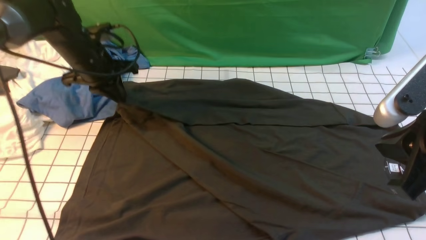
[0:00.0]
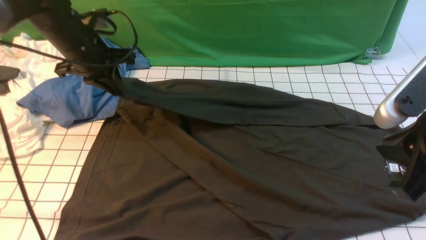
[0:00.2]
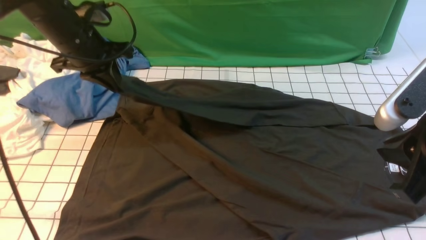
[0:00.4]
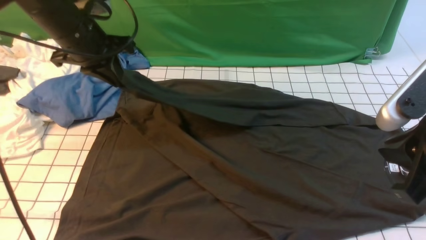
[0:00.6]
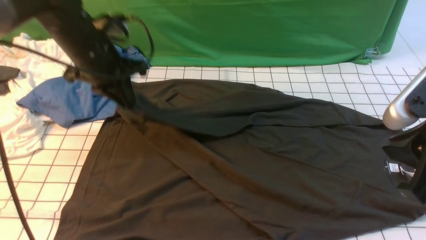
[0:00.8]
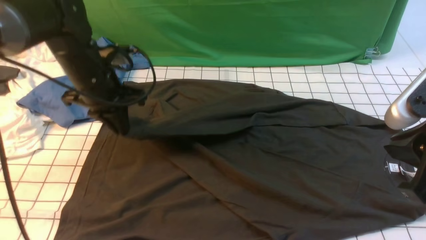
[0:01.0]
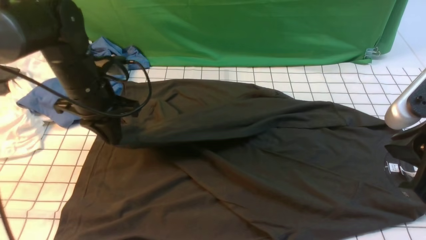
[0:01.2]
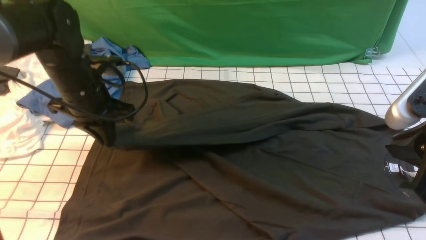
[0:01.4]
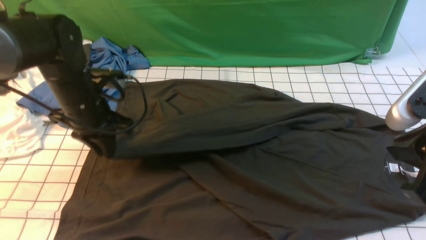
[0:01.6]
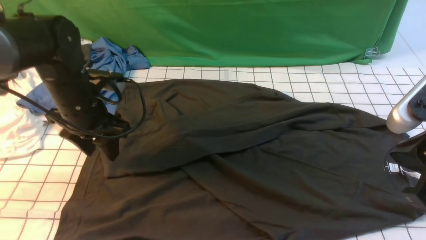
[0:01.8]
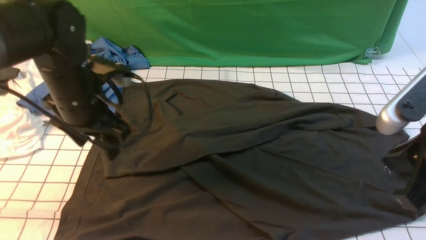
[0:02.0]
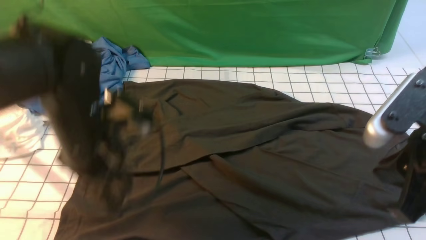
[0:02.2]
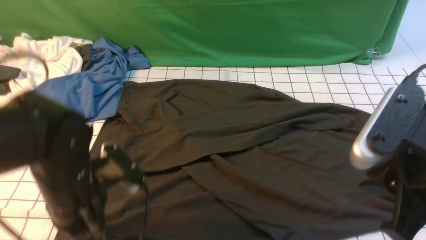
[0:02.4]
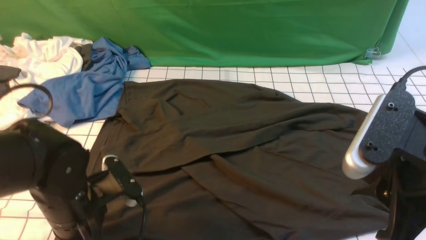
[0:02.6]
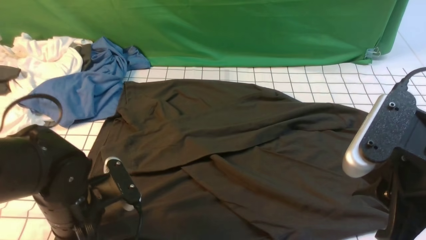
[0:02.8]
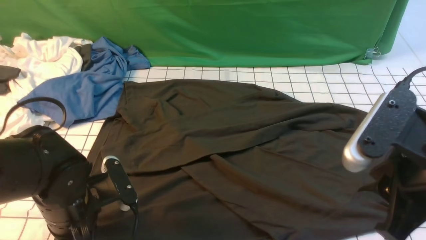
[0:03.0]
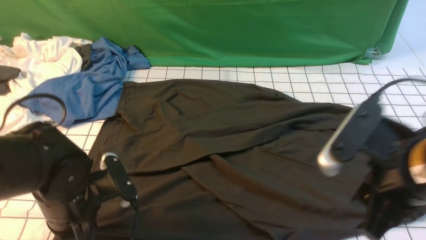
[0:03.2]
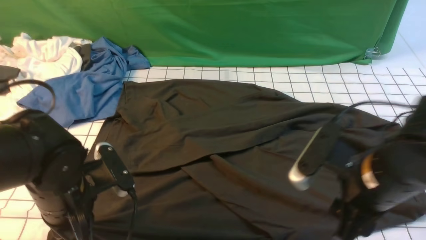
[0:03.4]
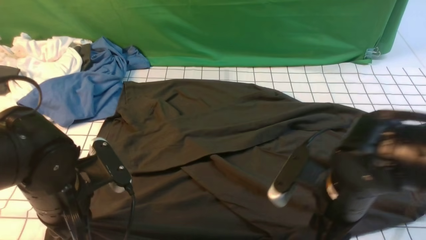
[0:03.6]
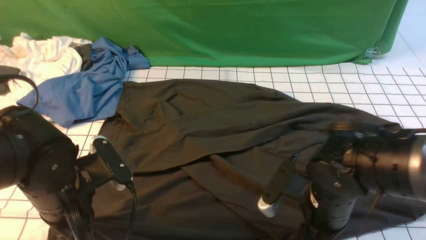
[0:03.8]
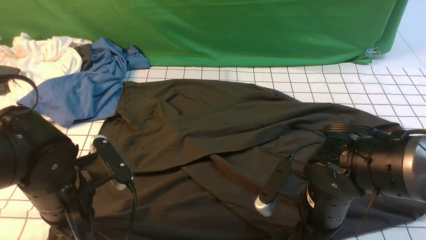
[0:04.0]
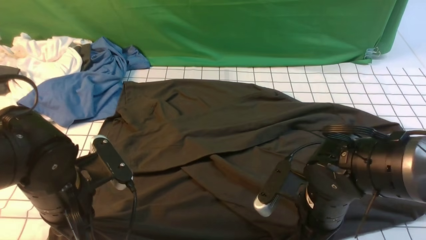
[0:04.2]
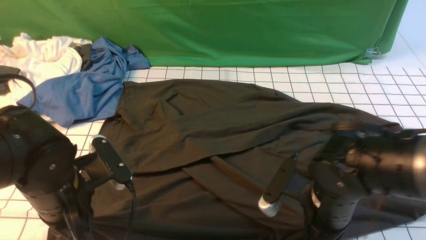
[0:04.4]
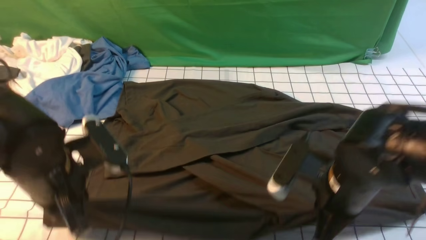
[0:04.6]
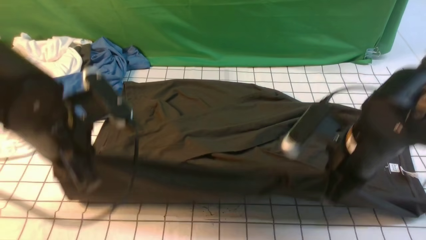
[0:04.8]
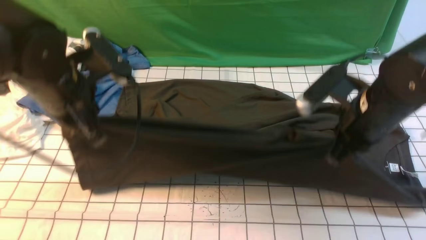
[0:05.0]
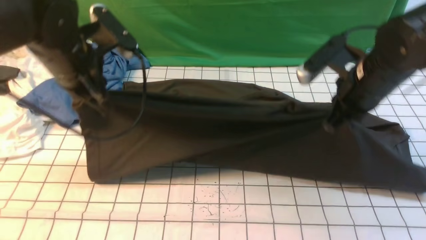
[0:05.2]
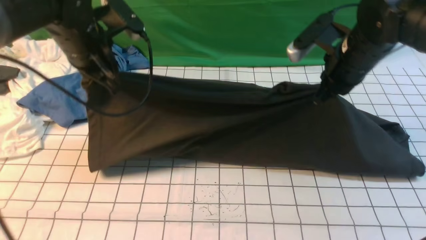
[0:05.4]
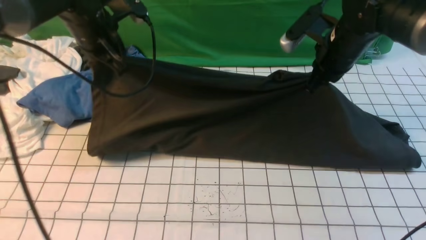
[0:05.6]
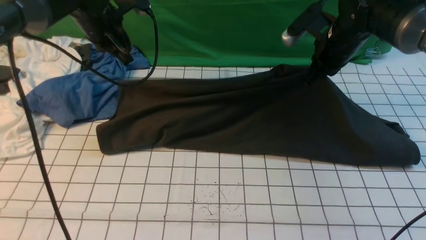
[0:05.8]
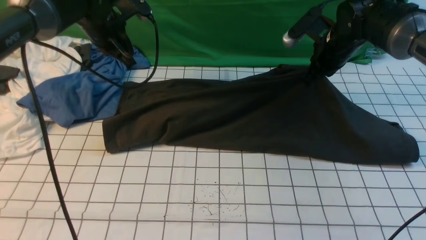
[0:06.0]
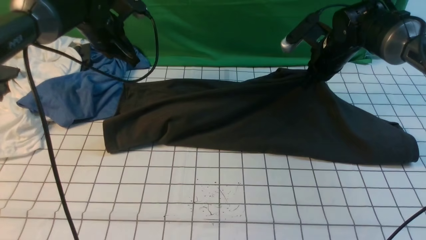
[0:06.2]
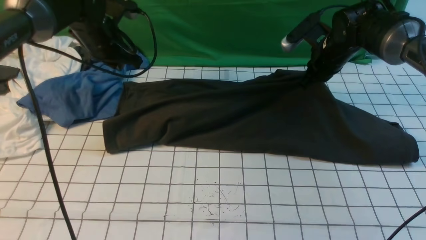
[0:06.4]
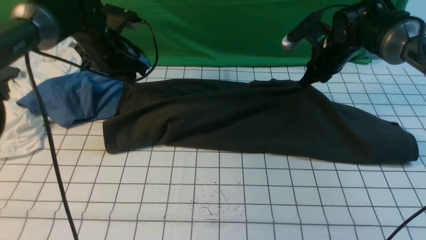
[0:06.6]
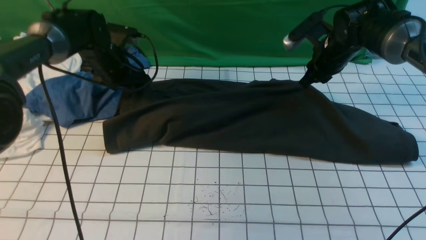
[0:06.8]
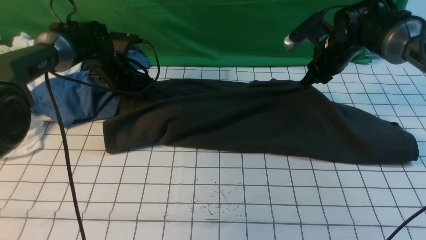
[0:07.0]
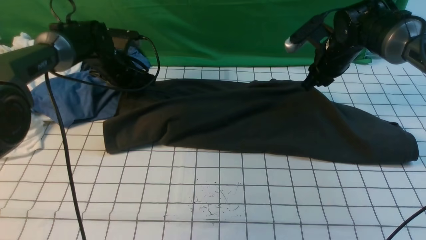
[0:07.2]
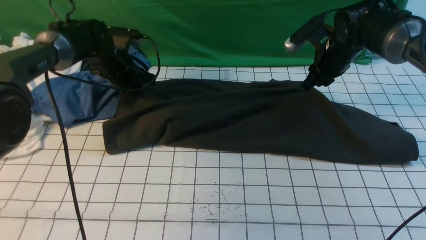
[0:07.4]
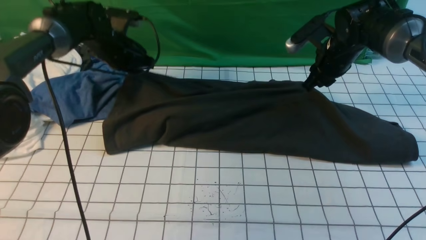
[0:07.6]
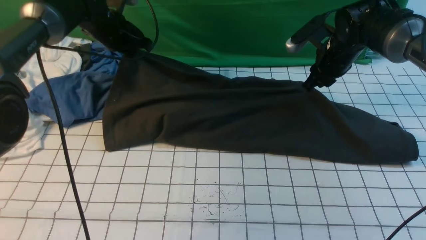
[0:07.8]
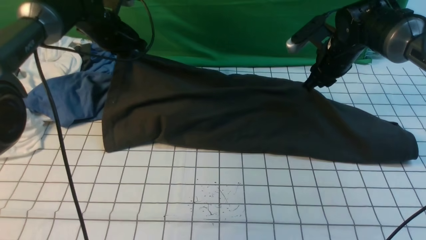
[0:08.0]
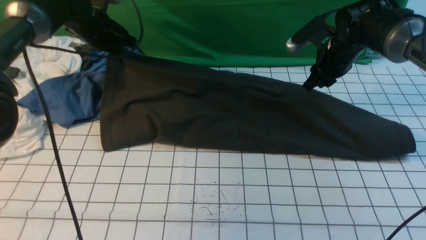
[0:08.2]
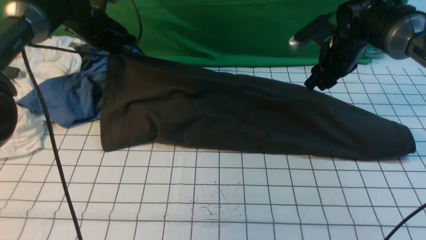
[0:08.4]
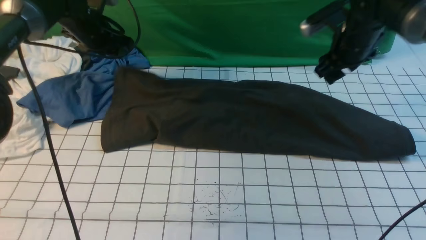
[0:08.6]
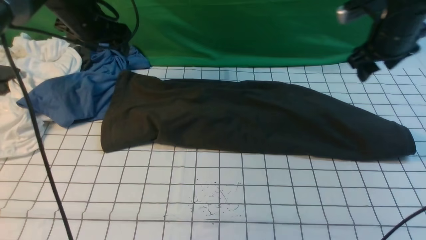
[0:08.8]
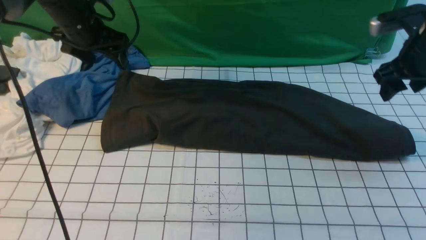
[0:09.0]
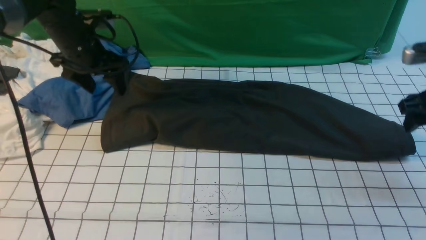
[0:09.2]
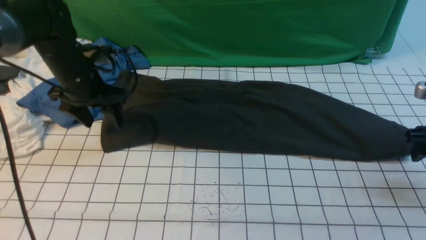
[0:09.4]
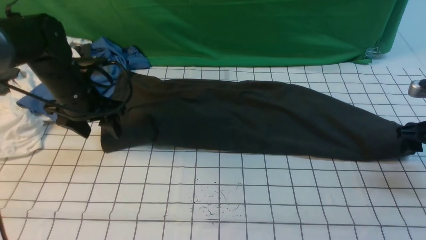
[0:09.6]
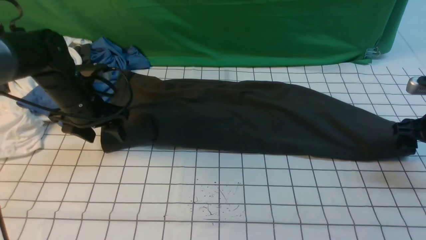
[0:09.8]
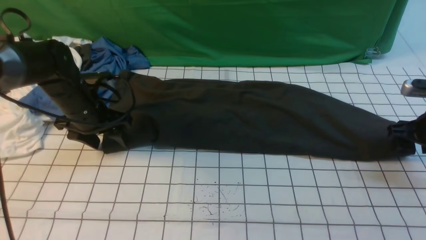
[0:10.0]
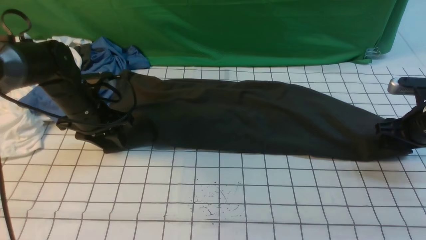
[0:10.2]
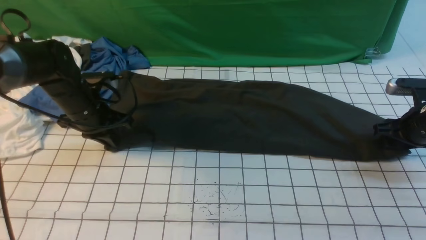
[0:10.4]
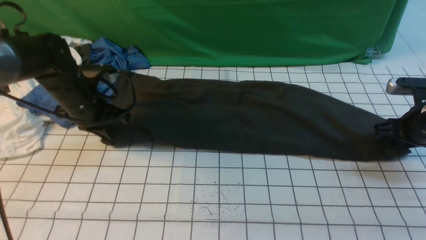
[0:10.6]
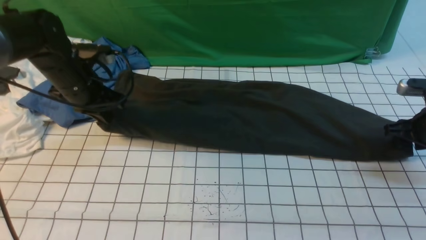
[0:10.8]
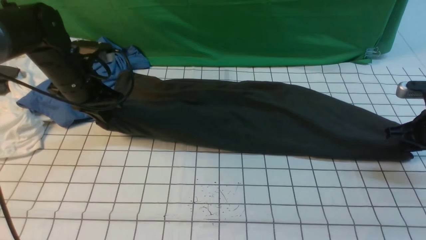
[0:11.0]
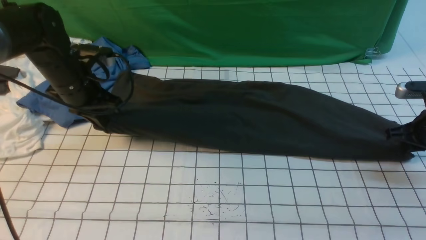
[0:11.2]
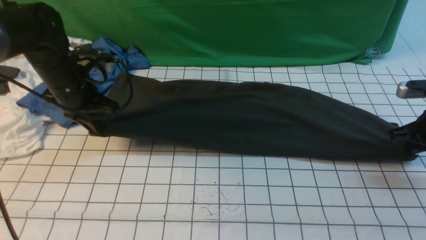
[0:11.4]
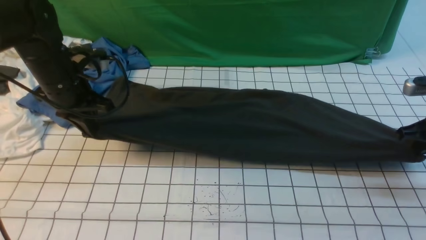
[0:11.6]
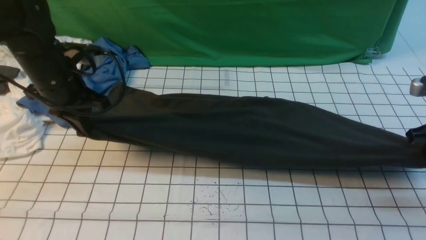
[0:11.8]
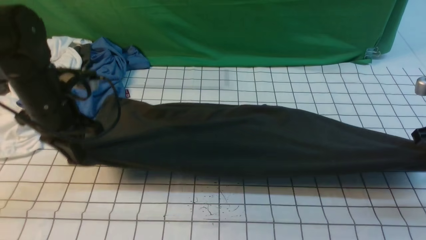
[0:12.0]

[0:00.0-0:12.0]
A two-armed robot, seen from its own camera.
Step, 0:00.0 to 0:02.0: use the left arm to drag and drop the cuff onto the cuff closest to the left arm.
Step, 0:02.2 to 0:04.4: use both arms simultaneously to clamp the lower edge of the clothing fabric.
Step, 0:04.6 to 0:08.6: use both arms to drag the lower edge of the fabric forward and fold it over the upper edge.
0:00.0 to 0:01.6: The left gripper heads backward, covering some 10 cm.
0:01.6 to 0:03.0: The right gripper ends up about 5 cm from where it was; the left gripper heads backward, covering about 15 cm, and opens, then closes once more.
0:03.0 to 0:04.4: The right gripper goes roughly 15 cm downward, forward and to the left, and closes, while the left gripper closes its fingers.
0:04.4 to 0:06.0: Both grippers move forward, about 25 cm.
0:06.0 to 0:07.6: The left gripper shifts some 5 cm downward, and opens and closes again. The right gripper opens.
0:07.6 to 0:09.0: The left gripper shifts approximately 5 cm upward, and opens its fingers; the right gripper heads to the right, backward and upward, covering about 15 cm, and opens up.
0:09.0 to 0:10.4: The left gripper goes some 10 cm downward and backward, and closes its fingers. The right gripper heads downward, covering some 10 cm.
0:10.4 to 0:12.0: The left gripper heads backward and upward, covering some 10 cm. Meanwhile the right gripper is displaced upward by approximately 5 cm, and closes up.

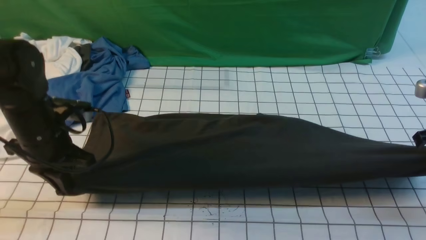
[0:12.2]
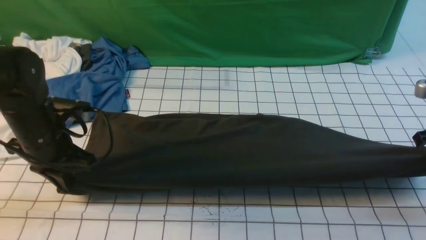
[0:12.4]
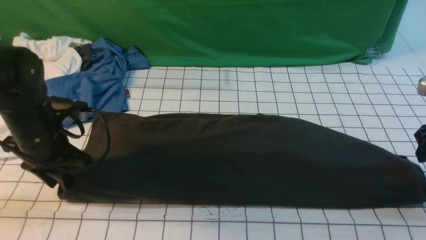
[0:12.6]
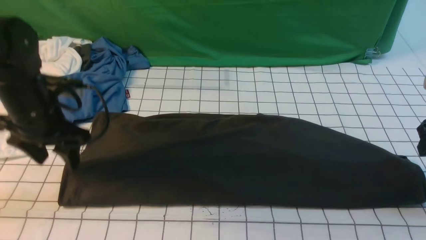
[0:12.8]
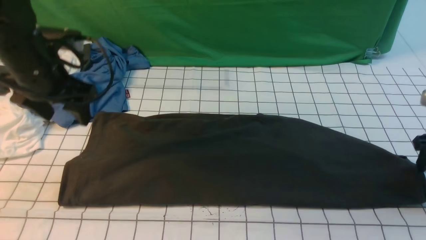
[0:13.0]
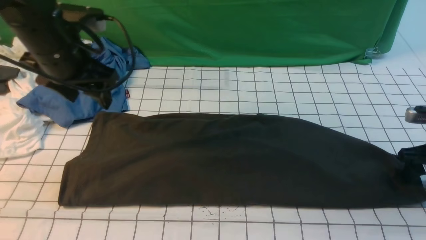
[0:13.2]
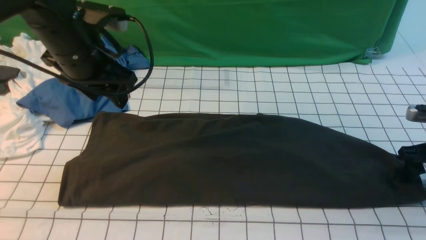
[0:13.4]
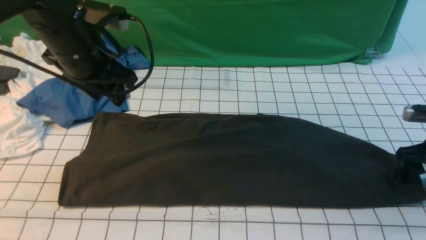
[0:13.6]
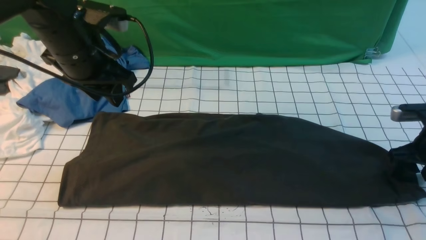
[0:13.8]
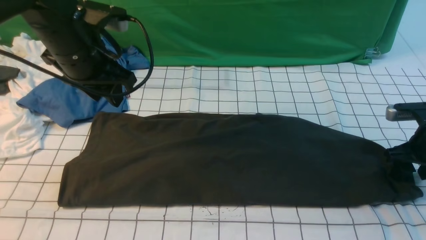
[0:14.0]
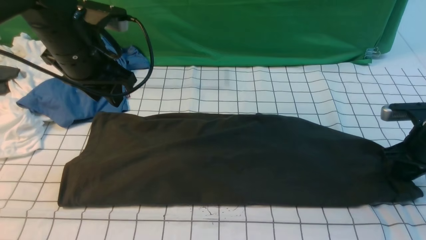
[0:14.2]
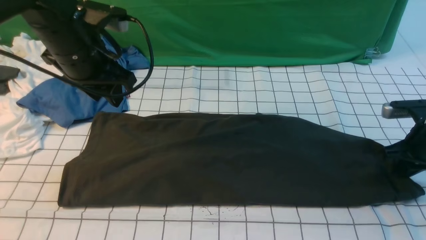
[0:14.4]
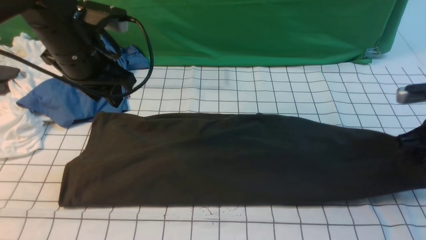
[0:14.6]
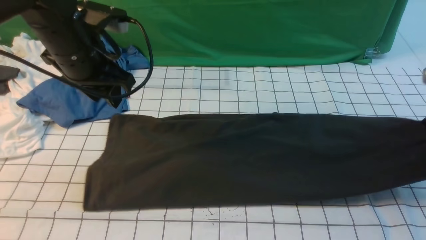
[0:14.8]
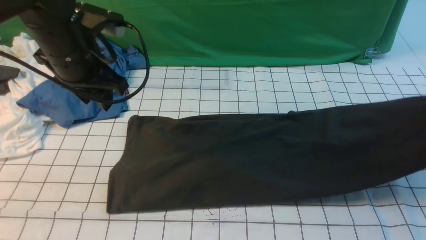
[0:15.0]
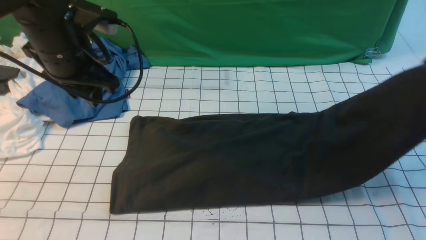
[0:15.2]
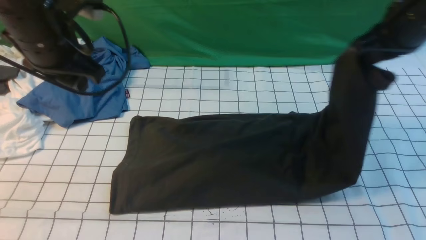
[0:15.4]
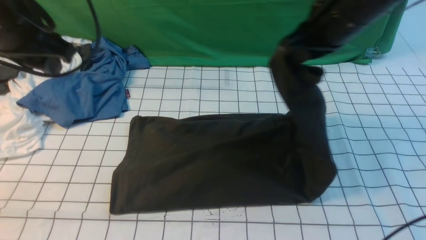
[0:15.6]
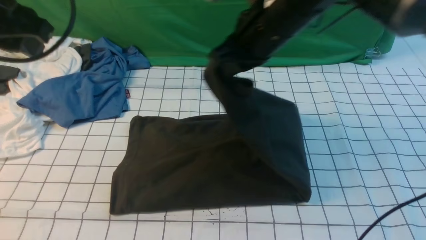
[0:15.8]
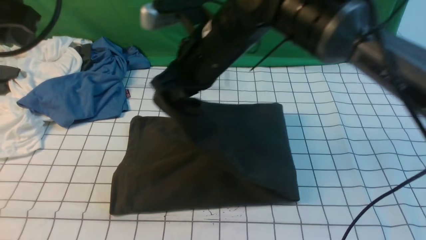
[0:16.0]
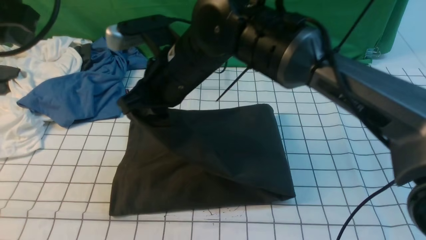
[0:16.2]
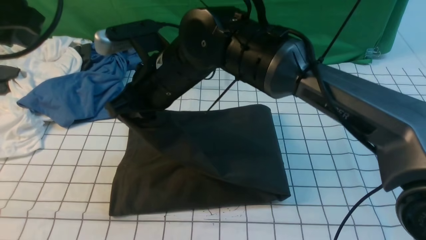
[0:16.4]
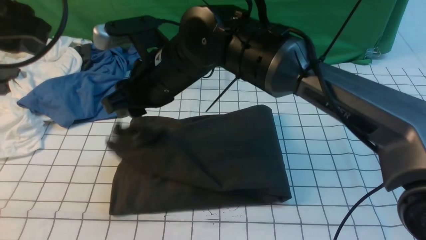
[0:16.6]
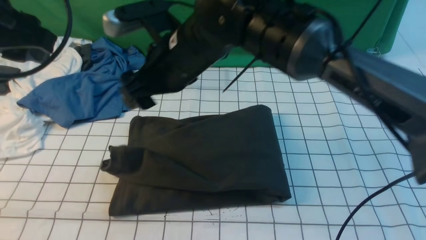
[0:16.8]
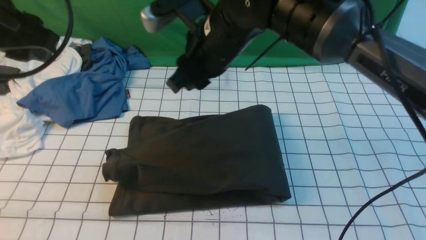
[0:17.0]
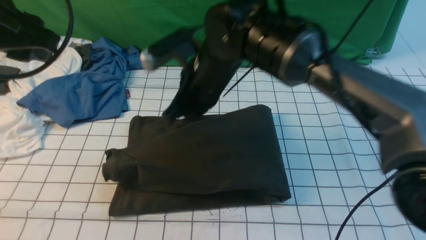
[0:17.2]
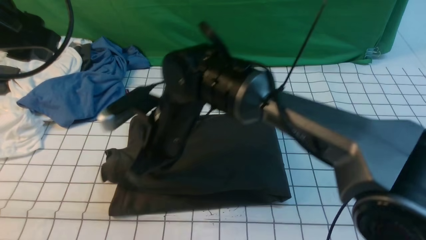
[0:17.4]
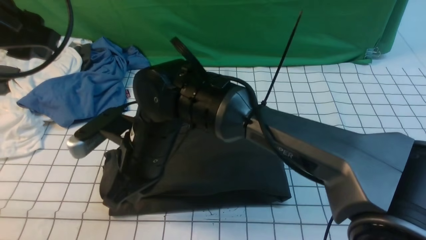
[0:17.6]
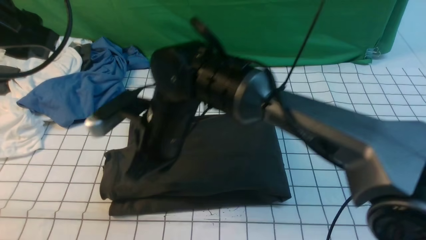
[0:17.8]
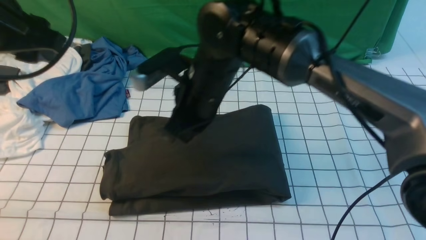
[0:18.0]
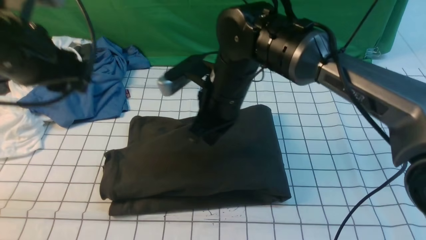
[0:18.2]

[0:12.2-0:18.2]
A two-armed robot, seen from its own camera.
Step, 0:12.2 to 0:14.8: use the right arm to clamp the right edge of the fabric.
Step, 0:15.0 to 0:16.6: use the right arm to drag the right edge of the fabric to the left and folds it over the left edge.
0:12.2 to 0:13.8: The left gripper shifts some 10 cm upward and to the right, and opens up. The right gripper heads downward, covering about 10 cm, and opens up.
0:13.8 to 0:15.2: The right gripper moves upward, roughly 20 cm, and closes.
0:15.2 to 0:16.6: The right gripper is displaced to the left by about 35 cm, and opens up. The left gripper travels upward and backward by about 10 cm.
0:16.6 to 0:18.2: The right gripper moves to the right and downward, about 10 cm, and closes, while the left gripper travels downward by roughly 10 cm.
